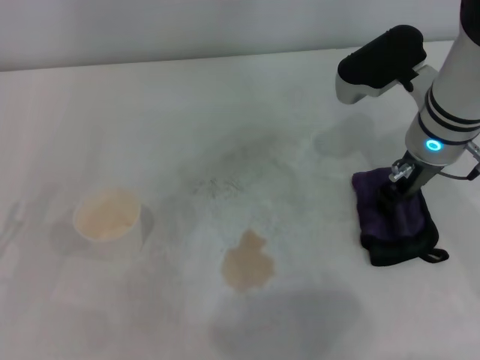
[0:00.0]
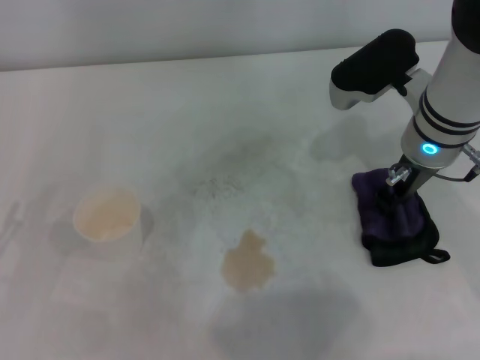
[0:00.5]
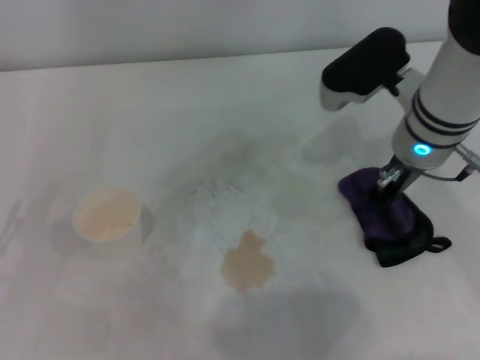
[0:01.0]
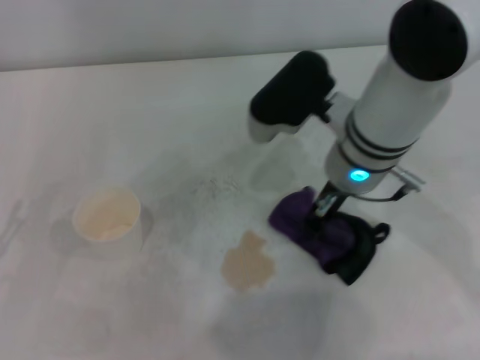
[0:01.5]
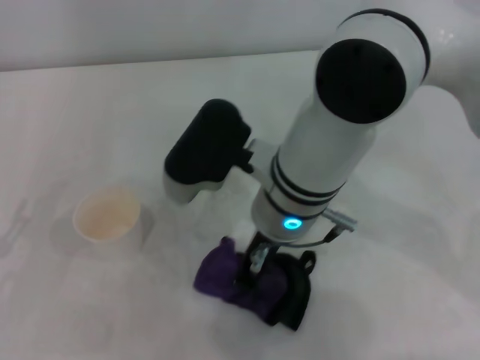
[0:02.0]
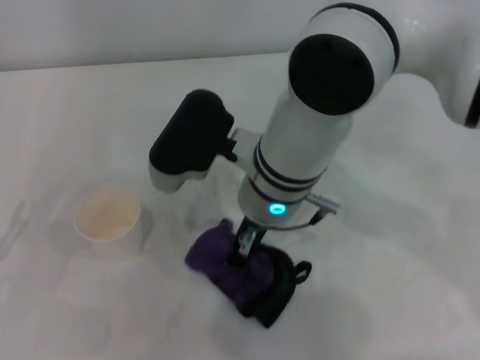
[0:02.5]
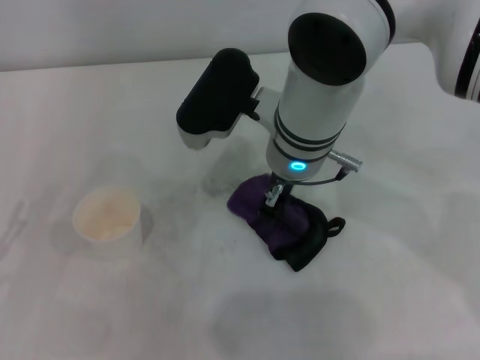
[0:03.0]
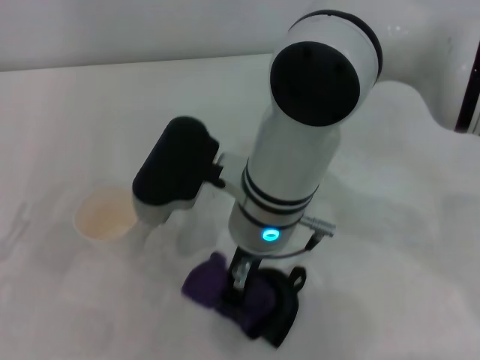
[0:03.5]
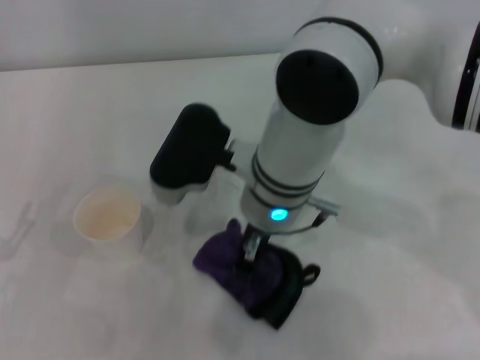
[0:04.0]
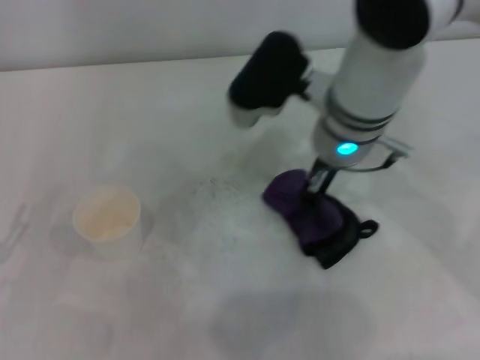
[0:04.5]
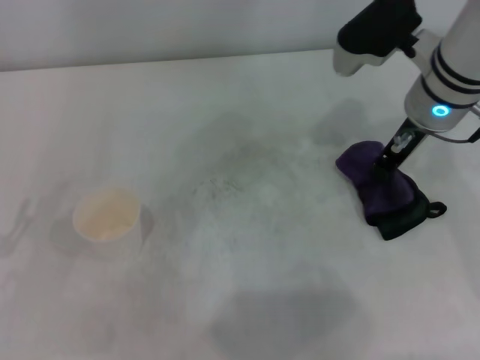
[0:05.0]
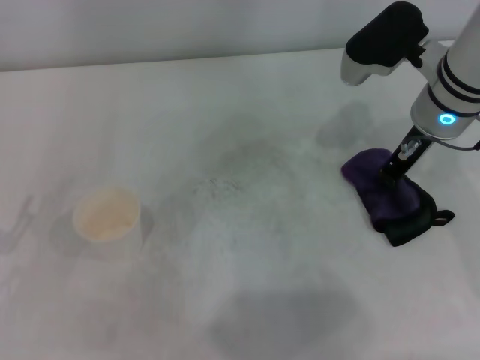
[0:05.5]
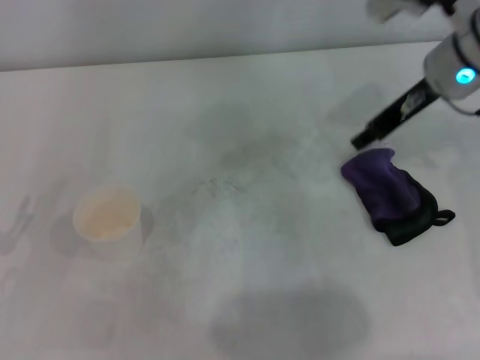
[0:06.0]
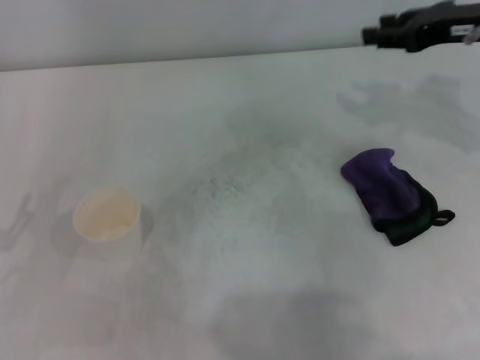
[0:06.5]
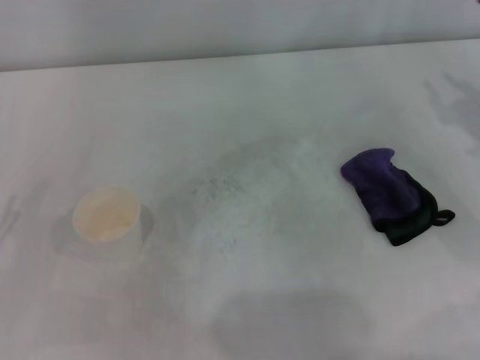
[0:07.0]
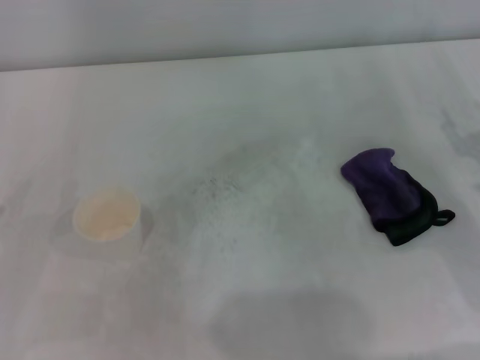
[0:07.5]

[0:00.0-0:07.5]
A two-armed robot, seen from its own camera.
Step, 0:01.0 to 0:04.5: Wipe the stains off the table with the right gripper.
Step, 0:05.0 to 0:05.5: Place the rag on the table with the right gripper.
0:00.0 to 0:02.0: The right gripper travels to the left by roughly 15 cm, and closes its fingers.
0:02.0 to 0:04.0: The grippers make only small movements.
0:04.0 to 0:05.5: The right gripper heads to the right, covering roughly 20 cm.
0:05.5 to 0:07.5: The right gripper travels to the right, backward and downward by approximately 20 cm, and opens.
